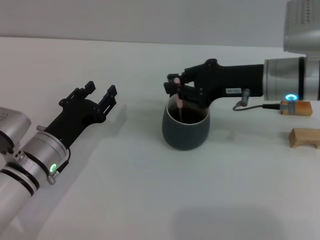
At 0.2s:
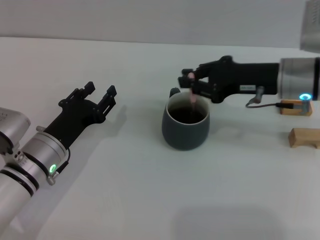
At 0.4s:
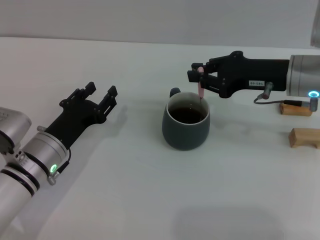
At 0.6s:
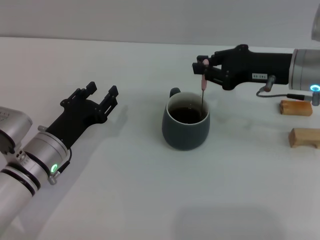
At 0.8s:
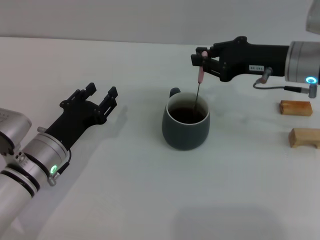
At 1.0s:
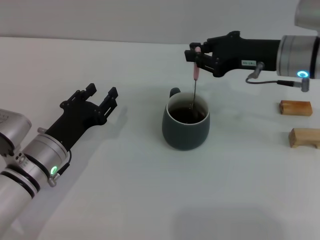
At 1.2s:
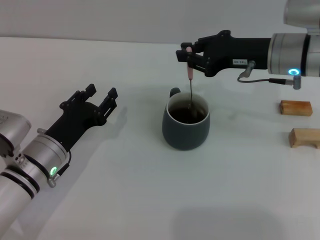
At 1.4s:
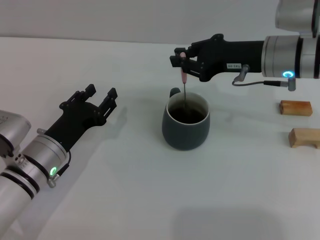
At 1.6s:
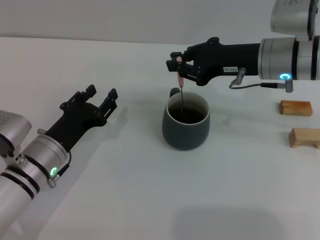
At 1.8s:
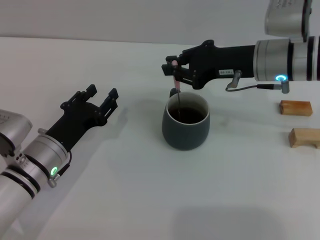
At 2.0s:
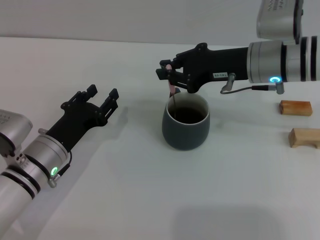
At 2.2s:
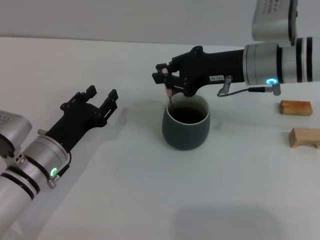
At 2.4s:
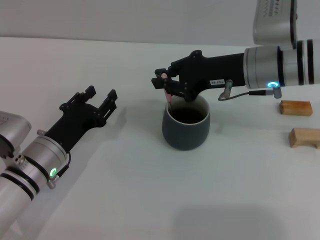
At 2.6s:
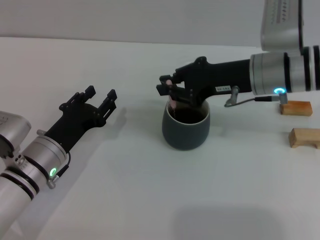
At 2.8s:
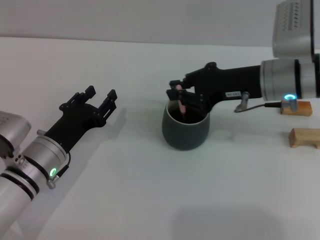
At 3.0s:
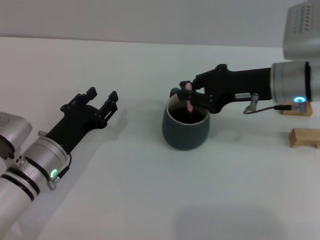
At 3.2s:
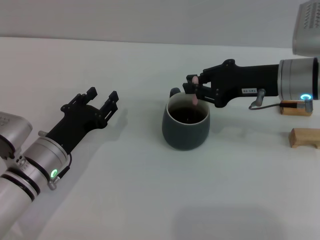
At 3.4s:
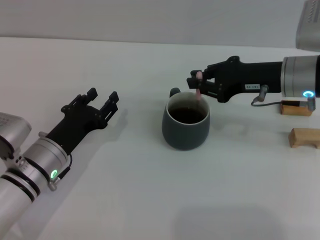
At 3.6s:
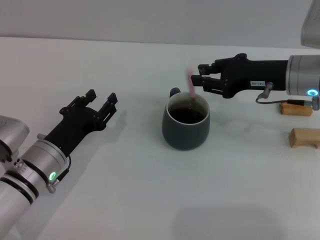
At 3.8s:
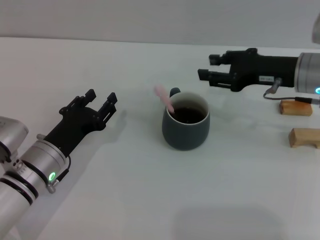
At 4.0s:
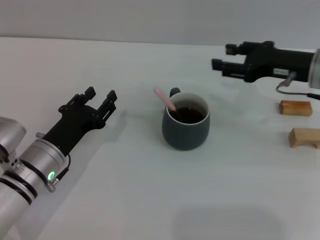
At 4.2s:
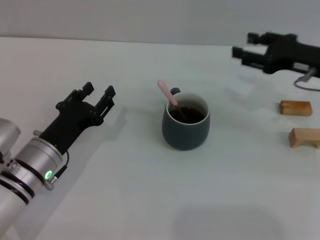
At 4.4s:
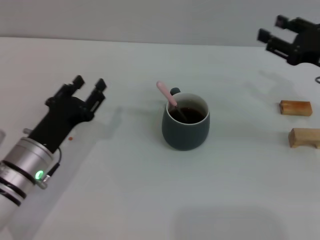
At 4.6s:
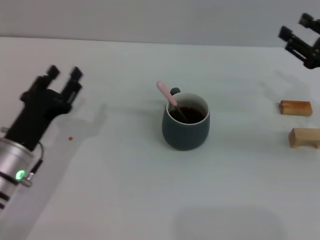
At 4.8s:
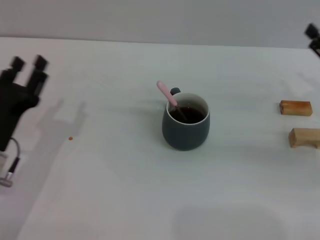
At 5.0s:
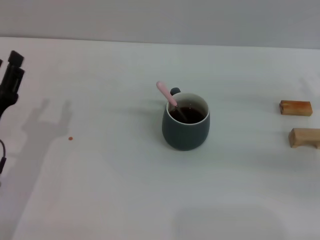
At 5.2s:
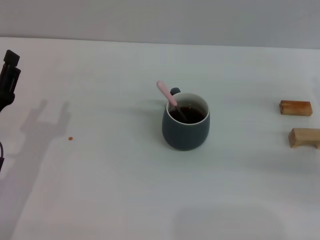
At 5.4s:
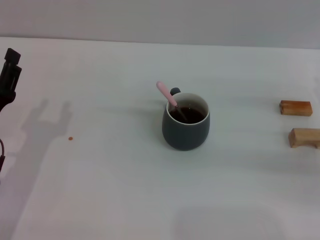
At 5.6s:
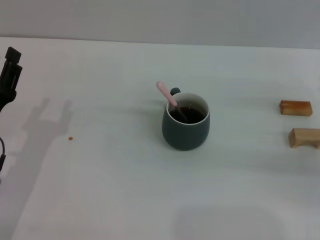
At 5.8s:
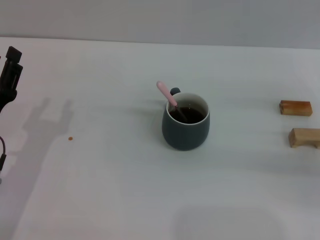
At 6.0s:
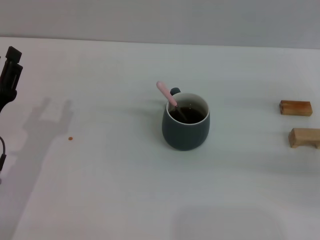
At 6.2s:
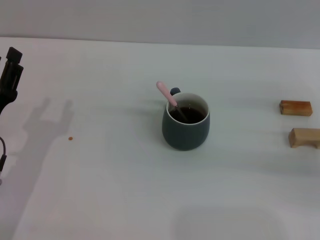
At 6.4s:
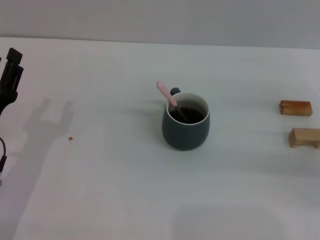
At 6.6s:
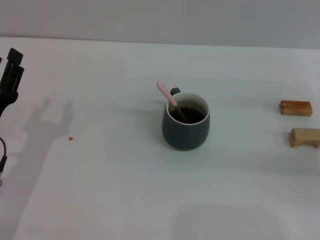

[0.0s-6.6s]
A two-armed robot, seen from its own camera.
Task of the whole recording: Move the grey cup to the center, lift the pink spoon, stir it three times in the cup, and put the spoon into the cup.
Step, 0.0s to 3.8s: Stir the coffee in the cup with the right gripper.
0.0s to 3.2s: The grippers stay close to where they were, moving slightly.
3.2s to 5.0s: The left gripper moves to the left, roughly 5 cm, while the right gripper travels to the right and backward by some 15 cm, and opens up.

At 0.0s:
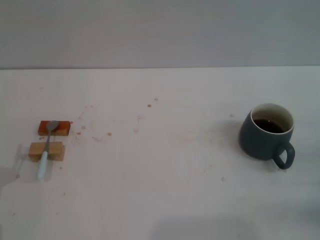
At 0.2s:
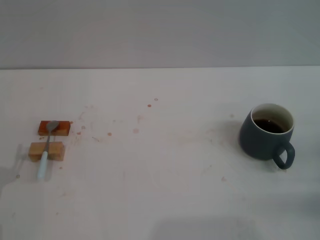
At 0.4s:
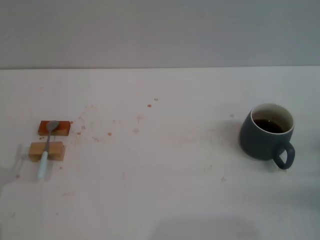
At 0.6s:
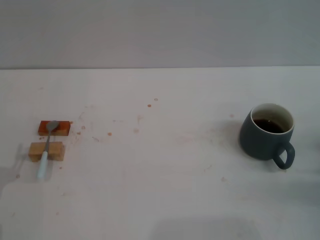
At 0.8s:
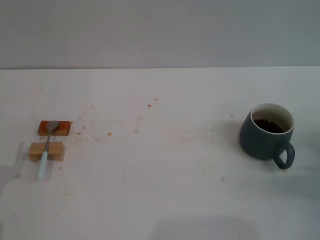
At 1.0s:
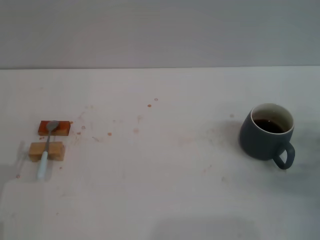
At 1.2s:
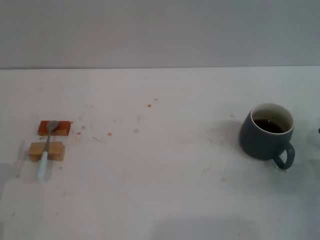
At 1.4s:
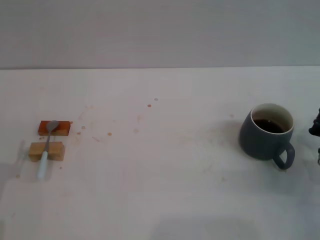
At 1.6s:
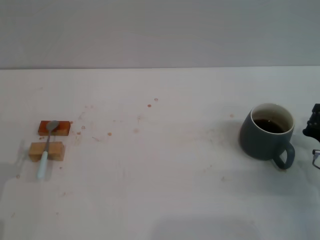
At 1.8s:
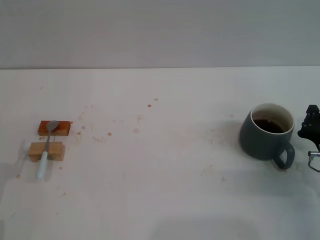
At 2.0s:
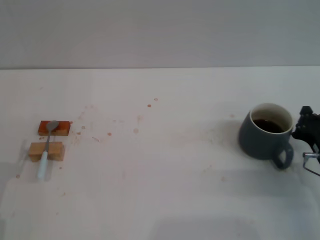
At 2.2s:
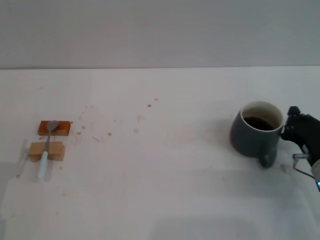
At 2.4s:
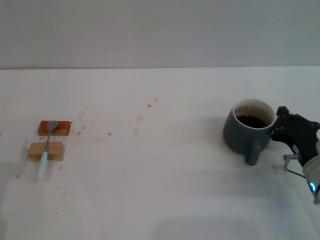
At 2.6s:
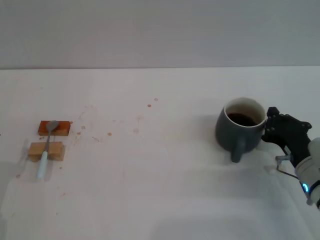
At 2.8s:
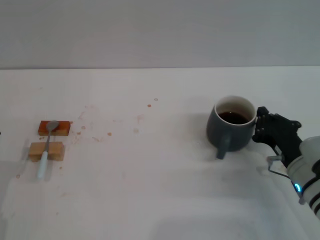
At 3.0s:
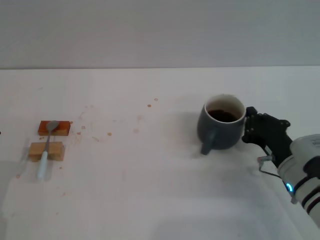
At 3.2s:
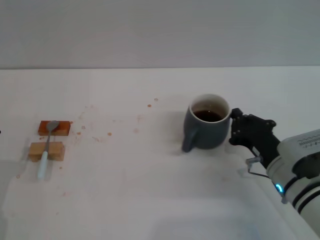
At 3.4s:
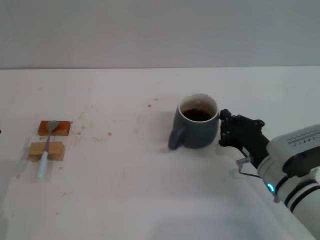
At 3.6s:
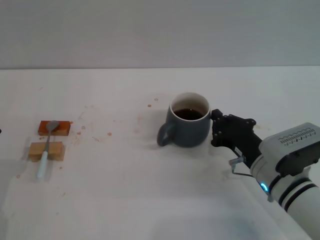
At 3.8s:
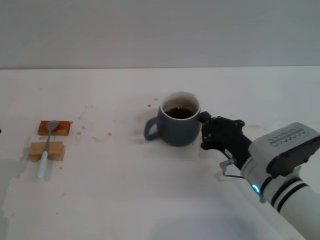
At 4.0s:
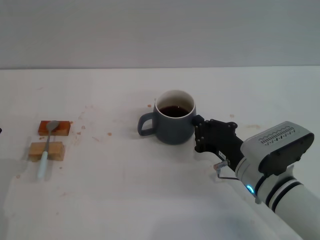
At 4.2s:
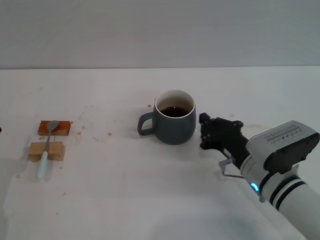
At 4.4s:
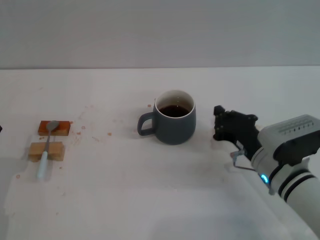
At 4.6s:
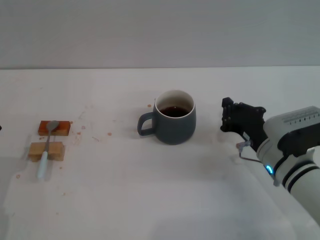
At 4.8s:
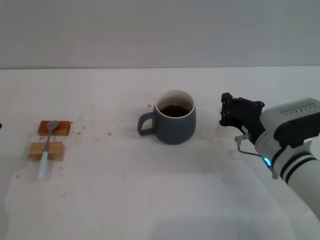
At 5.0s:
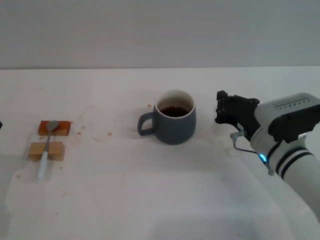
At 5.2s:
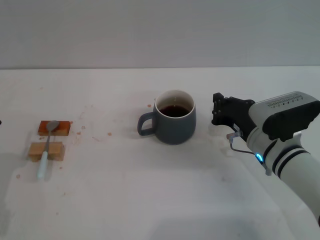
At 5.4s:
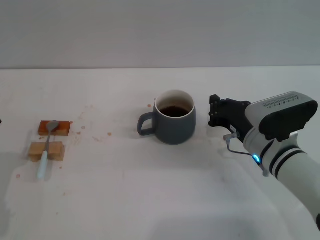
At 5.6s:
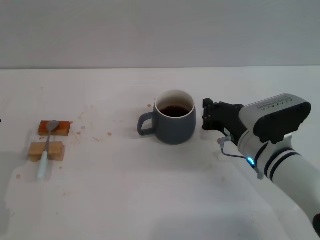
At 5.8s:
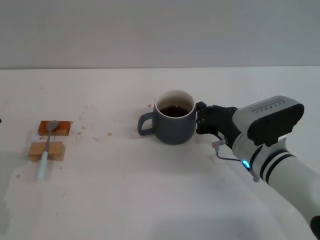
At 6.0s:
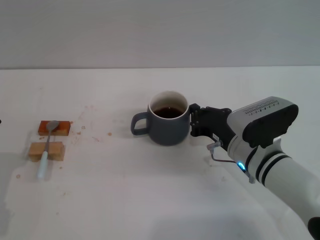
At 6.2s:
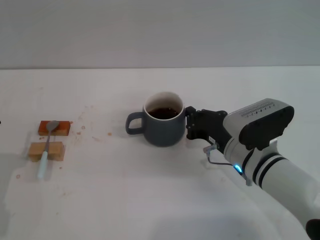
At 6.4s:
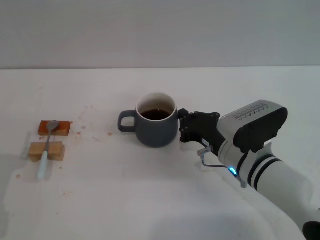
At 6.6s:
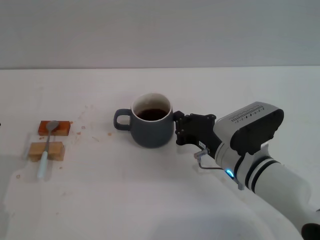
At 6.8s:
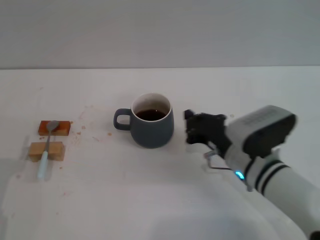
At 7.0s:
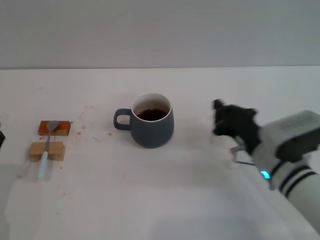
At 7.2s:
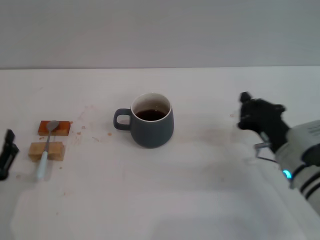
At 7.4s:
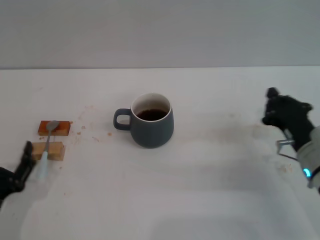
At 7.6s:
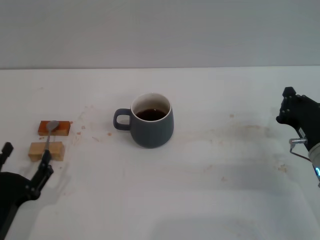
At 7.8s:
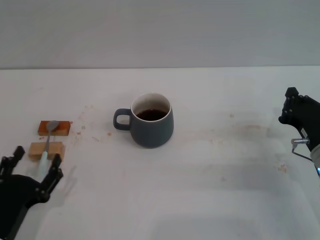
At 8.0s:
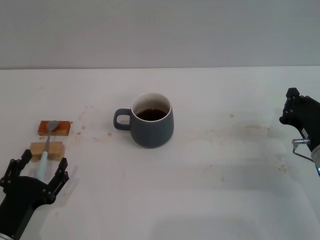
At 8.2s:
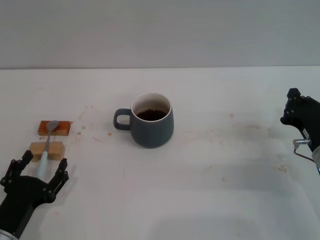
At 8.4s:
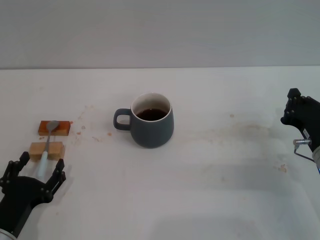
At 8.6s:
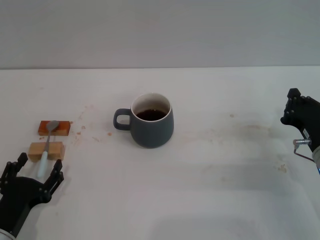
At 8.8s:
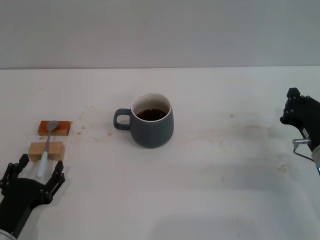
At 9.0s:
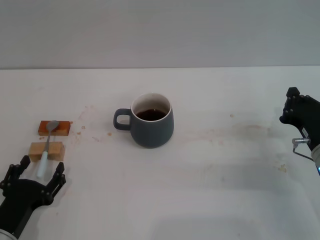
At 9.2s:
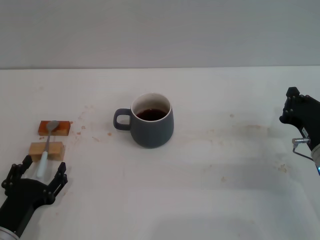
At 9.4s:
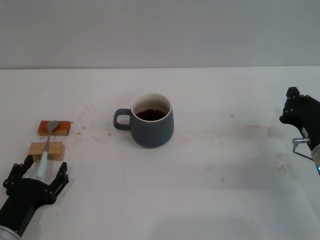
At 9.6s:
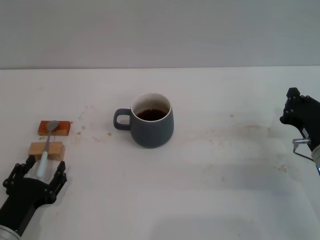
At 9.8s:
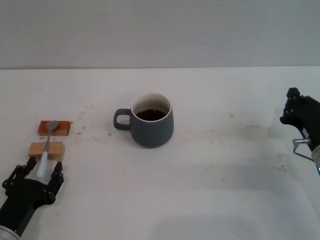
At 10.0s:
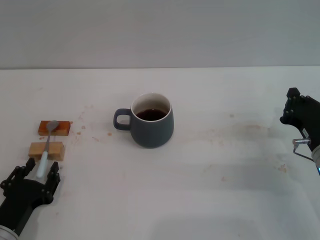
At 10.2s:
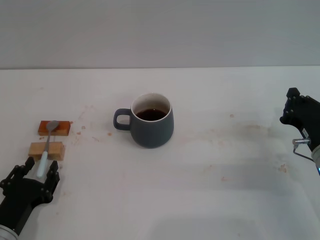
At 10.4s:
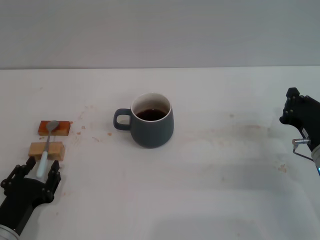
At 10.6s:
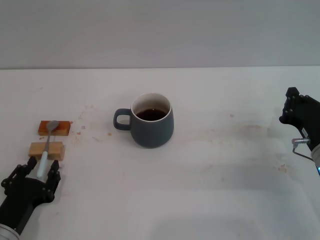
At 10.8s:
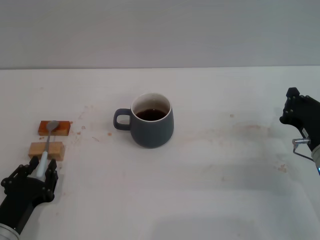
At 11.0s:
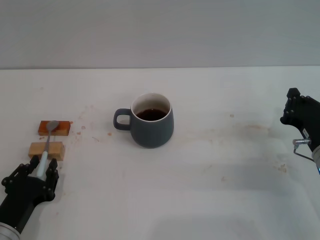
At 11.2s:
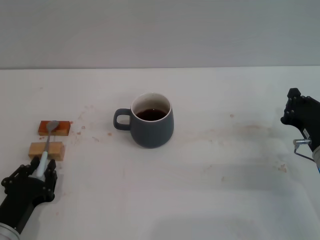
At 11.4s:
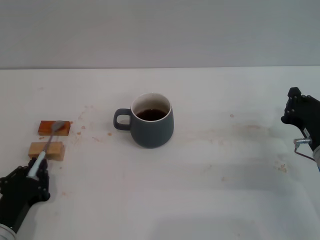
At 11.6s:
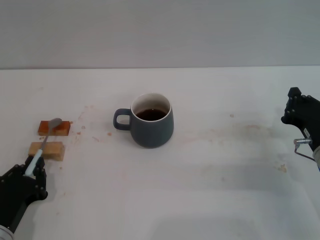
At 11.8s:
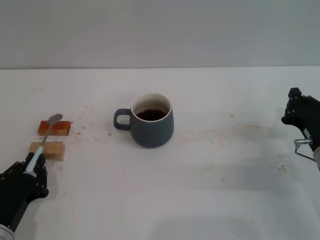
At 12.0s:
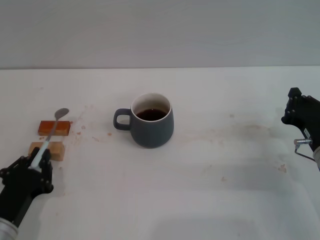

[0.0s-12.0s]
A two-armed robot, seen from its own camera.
Task of the whole recording: Move the grey cup to the center, lift the blue spoon, stir it three times in the cup, and put the spoon into the cup.
Step, 0.0s to 7.0s: Move the cup with coffee to the center of view with the right gripper.
0.0s to 1.6s: The right gripper heads to the left and forward, covering some 10 cm.
1.6s to 3.0s: The right gripper shifts about 5 cm to the left.
3.0s to 4.4s: The grippers stay close to where they were, moving slightly.
4.4s to 6.0s: The grippers make only small movements.
6.0s to 7.6s: The right gripper goes about 10 cm to the right. The left gripper goes approximately 5 cm backward.
7.6s to 9.0s: There are only small adjustments of the grippers.
9.0s to 10.4s: Both grippers stay put.
10.4s to 12.0s: The left gripper closes up.

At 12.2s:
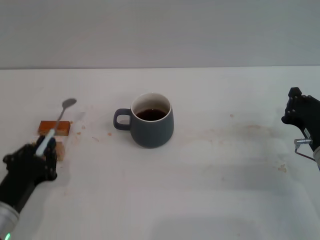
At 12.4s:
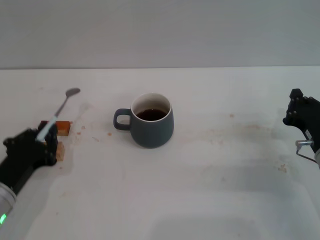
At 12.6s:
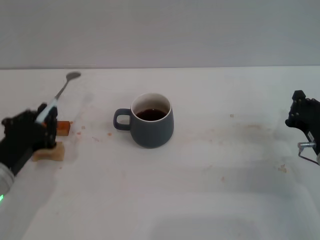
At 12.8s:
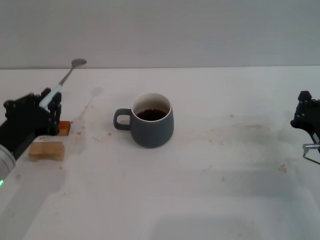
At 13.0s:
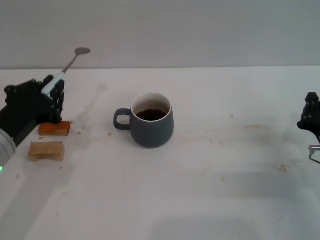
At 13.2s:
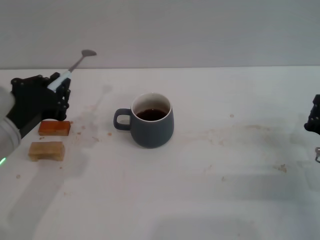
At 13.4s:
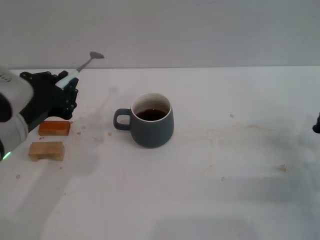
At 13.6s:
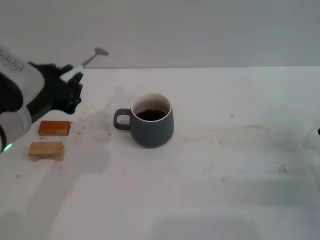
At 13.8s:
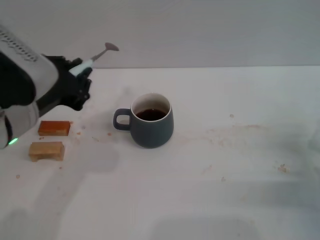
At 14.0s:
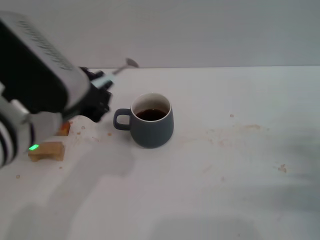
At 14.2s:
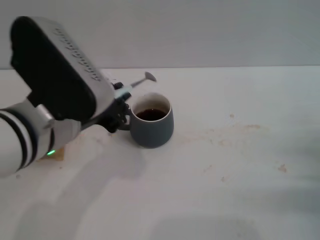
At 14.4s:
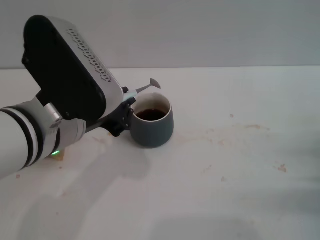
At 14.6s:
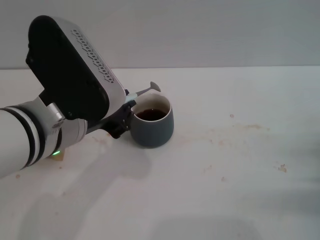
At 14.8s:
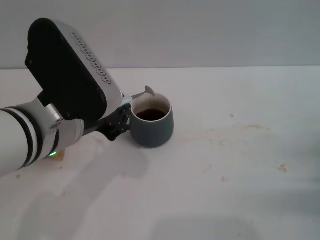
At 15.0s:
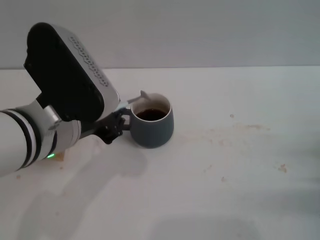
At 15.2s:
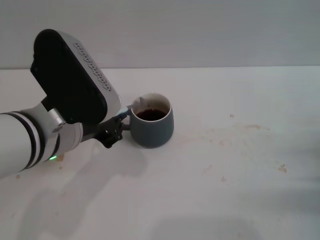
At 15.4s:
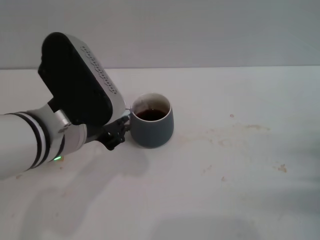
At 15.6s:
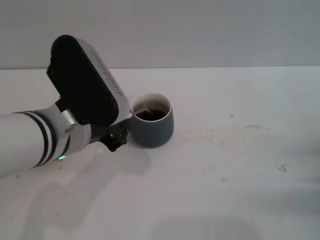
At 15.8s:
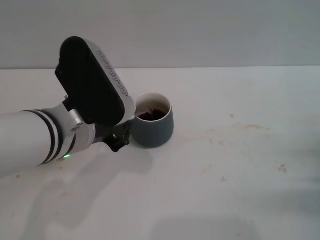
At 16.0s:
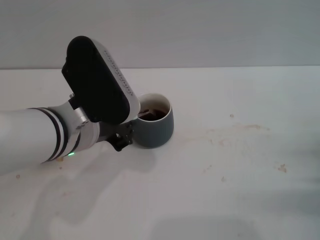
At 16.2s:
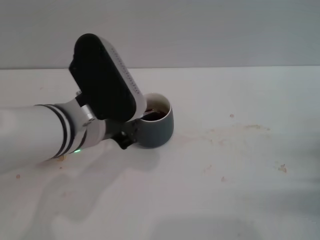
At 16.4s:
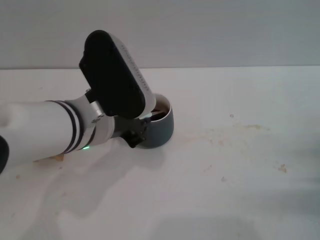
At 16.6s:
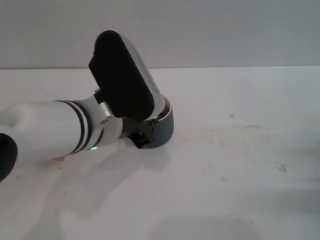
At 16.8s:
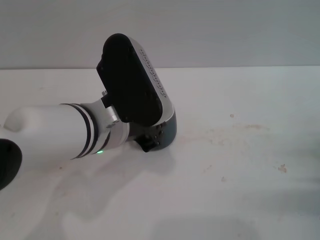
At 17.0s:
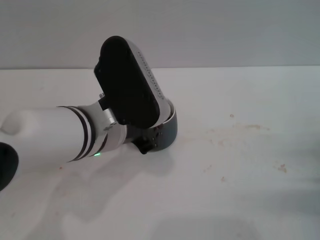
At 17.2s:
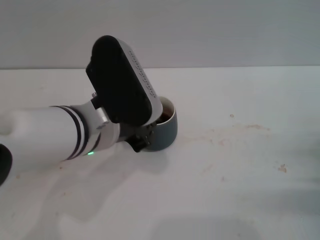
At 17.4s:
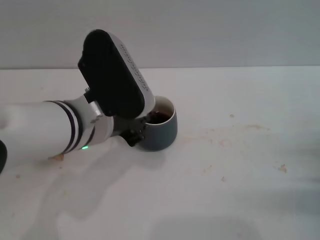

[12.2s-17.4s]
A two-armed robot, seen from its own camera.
Task of the whole recording: Move the grey cup to the center, lift the blue spoon, stir it three times in the cup, and put the spoon into the cup.
12.2s to 14.0s: The left gripper shifts roughly 20 cm upward and to the right, while the right gripper is displaced to the right by approximately 5 cm.
14.0s to 15.6s: There are only small adjustments of the grippers.
15.6s to 17.4s: The grippers move only a little.
